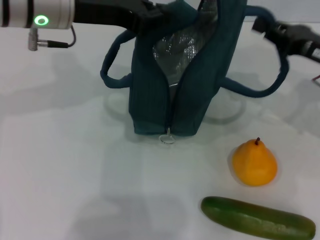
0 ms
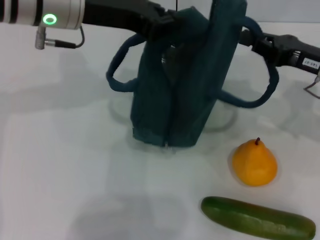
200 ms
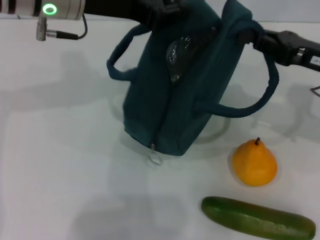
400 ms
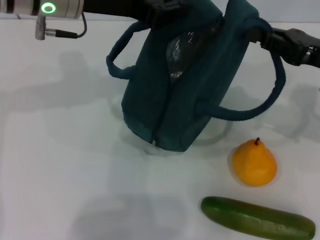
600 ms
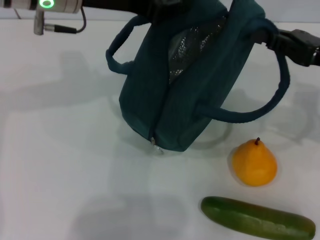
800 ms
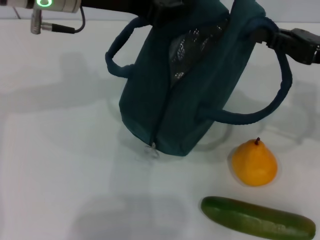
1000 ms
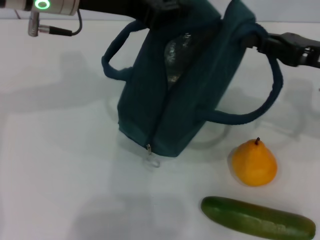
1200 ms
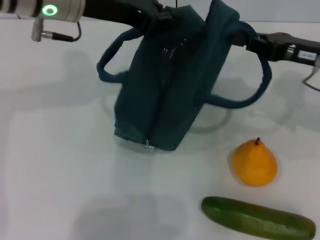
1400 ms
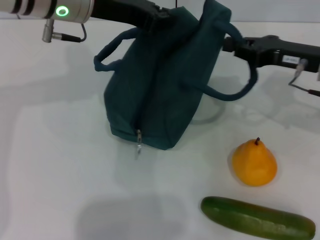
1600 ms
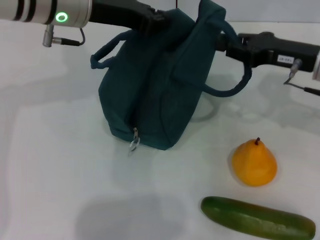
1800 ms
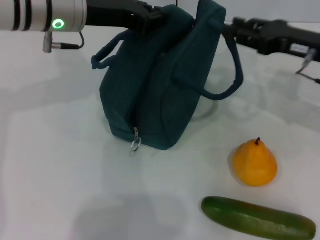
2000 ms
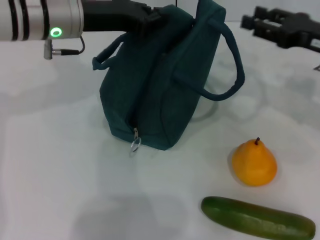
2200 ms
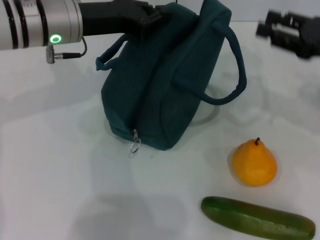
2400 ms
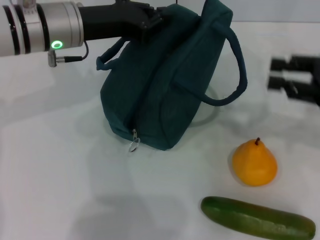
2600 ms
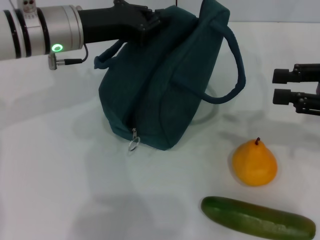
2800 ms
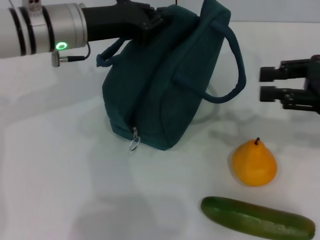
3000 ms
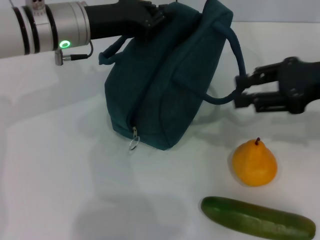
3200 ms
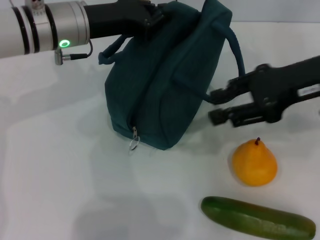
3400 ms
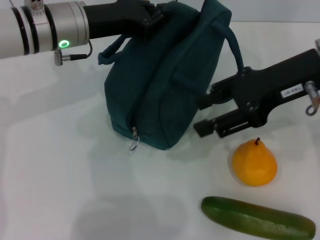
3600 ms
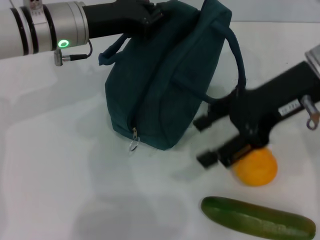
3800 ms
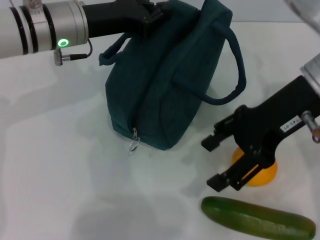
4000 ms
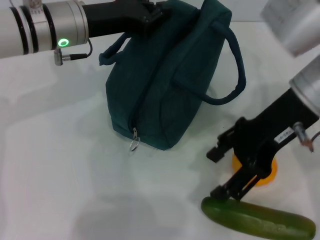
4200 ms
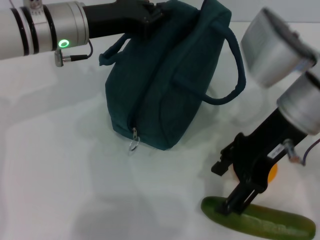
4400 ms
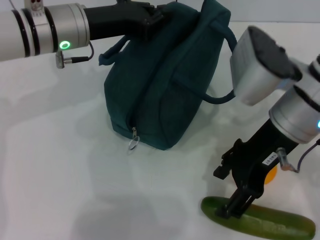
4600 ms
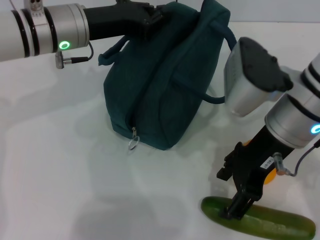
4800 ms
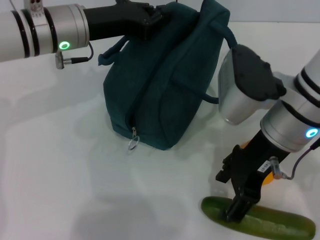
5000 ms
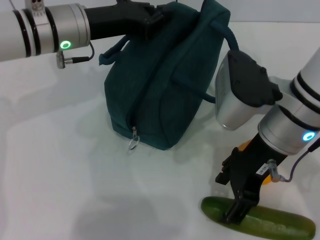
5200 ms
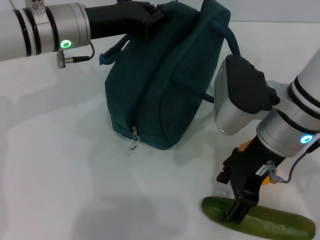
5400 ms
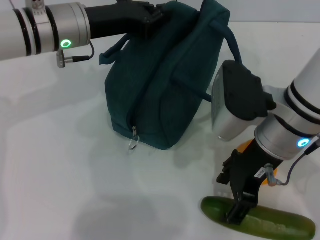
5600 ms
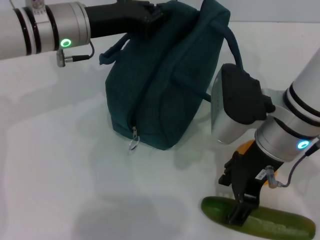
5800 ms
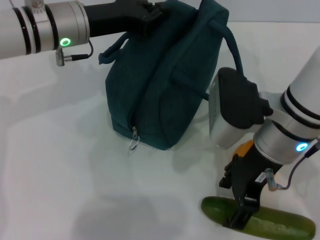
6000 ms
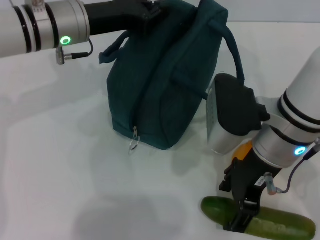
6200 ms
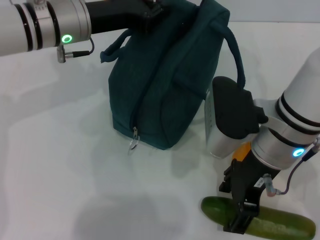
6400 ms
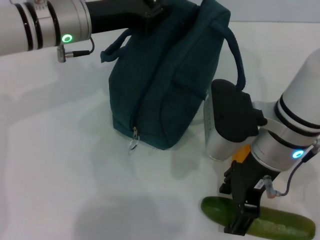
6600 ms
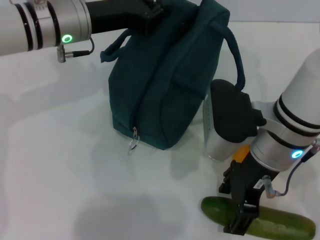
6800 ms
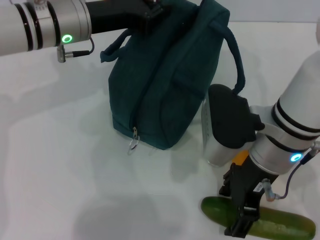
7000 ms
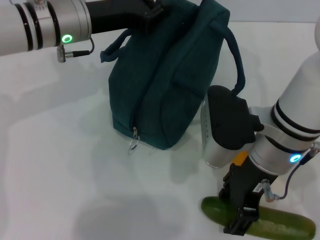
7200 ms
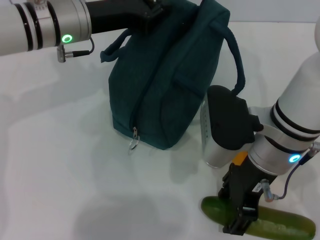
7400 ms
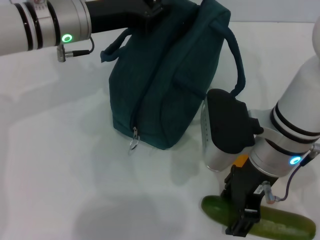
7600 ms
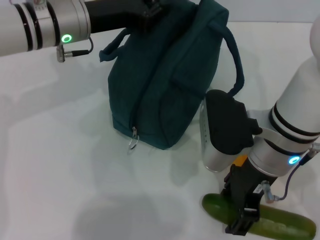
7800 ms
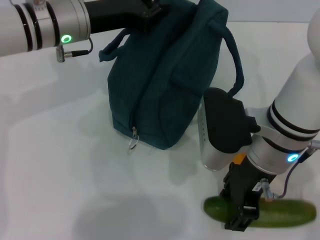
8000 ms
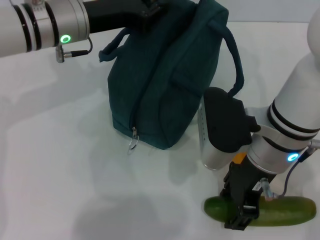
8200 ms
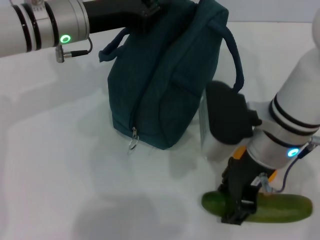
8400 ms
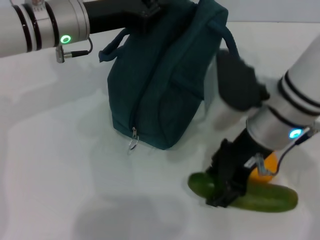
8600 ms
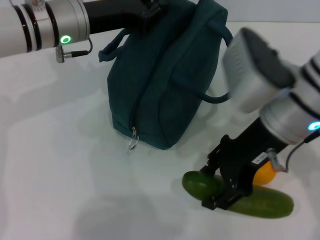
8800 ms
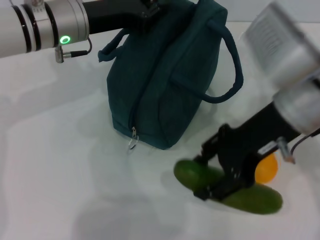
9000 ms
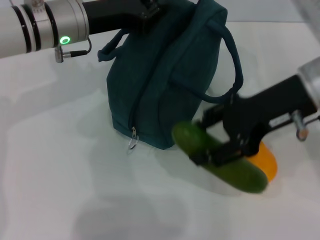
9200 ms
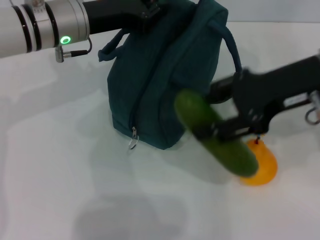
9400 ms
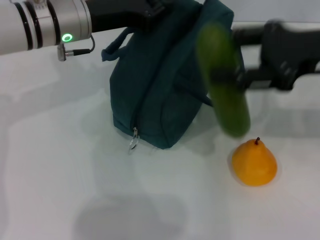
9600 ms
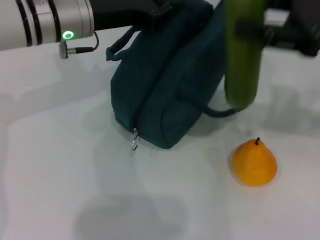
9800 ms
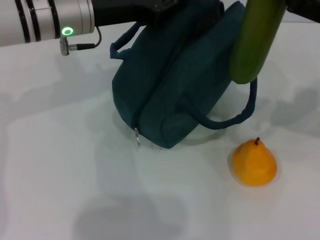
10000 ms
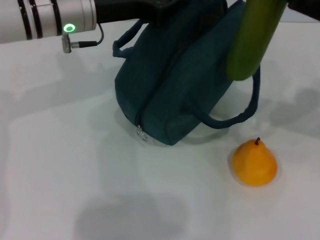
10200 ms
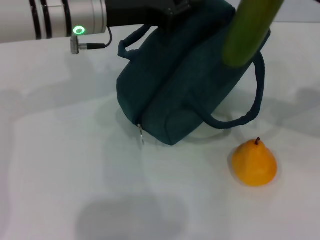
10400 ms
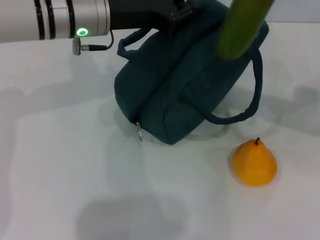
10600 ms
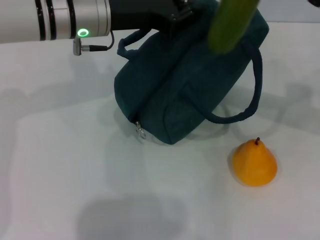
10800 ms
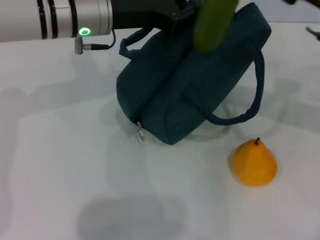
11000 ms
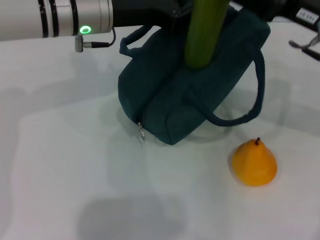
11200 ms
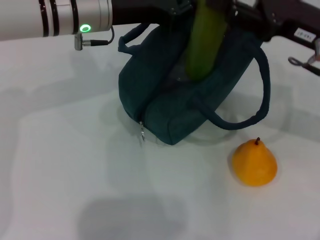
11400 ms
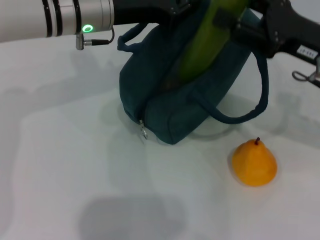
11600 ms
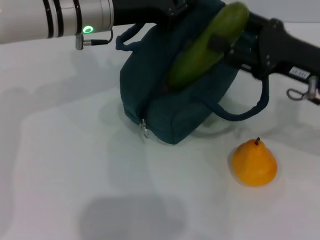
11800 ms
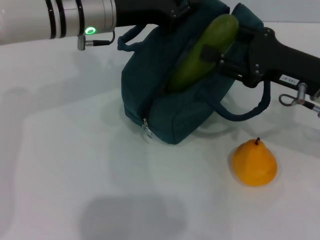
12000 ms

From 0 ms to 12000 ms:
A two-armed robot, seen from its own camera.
Step, from 0 ms to 8000 ms: Pick up the cucumber with your right hand.
From 1600 ms to 3000 ms: The right gripper heads backward and to the right, covering approximately 10 cm, and opens up. The left gripper is displaced downward by approximately 5 cm.
From 3000 ms to 4400 ms: The right gripper moves to the left, approximately 15 cm, and opens up.
From 4400 ms to 6000 ms: The right gripper ends up about 5 cm from where it was.
From 6000 ms to 7600 ms: There are only small adjustments of the grippers.
From 7600 ms to 9000 ms: The right gripper shifts about 5 cm upward.
From 9000 ms to 10400 ms: The right gripper goes about 10 cm to the right.
From 10400 ms to 12000 ms: The right gripper travels downward by about 10 cm.

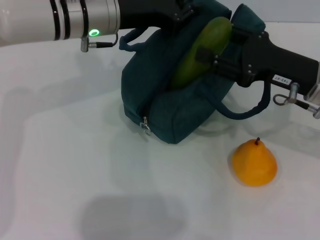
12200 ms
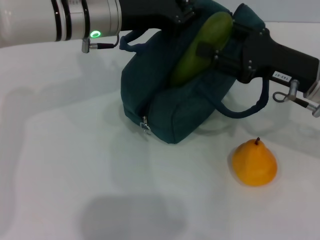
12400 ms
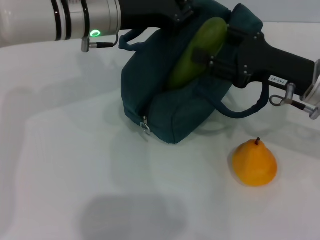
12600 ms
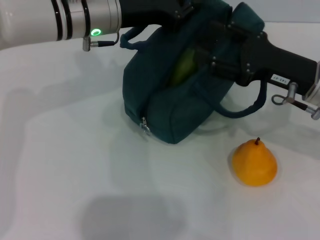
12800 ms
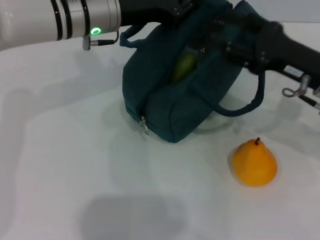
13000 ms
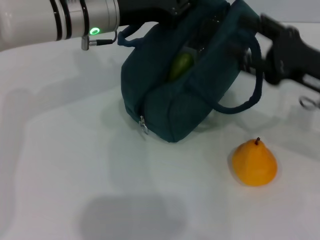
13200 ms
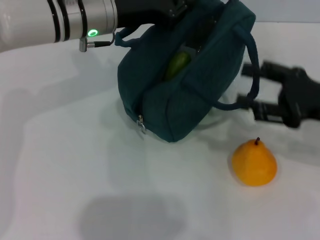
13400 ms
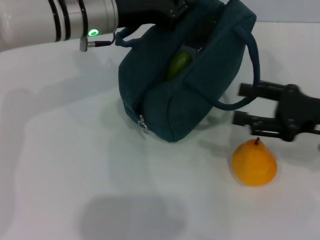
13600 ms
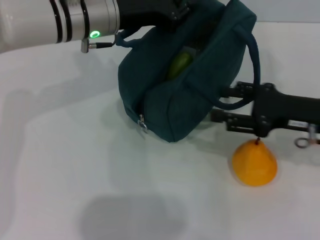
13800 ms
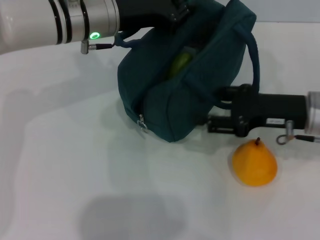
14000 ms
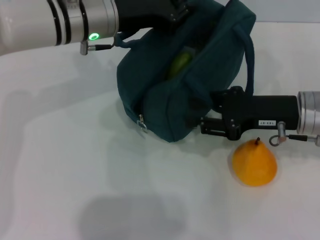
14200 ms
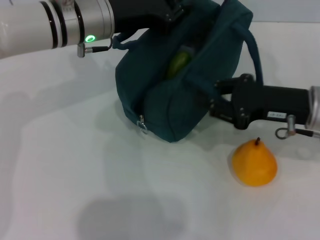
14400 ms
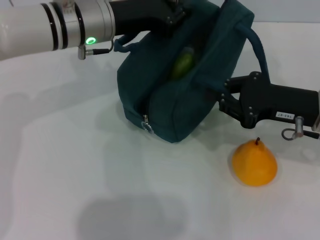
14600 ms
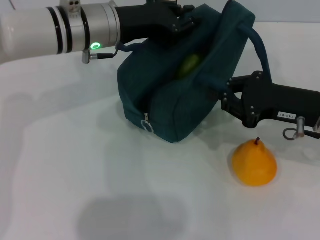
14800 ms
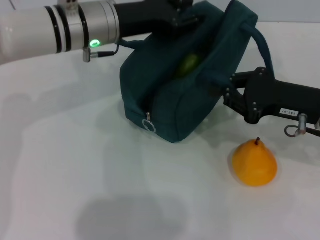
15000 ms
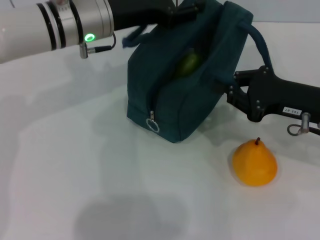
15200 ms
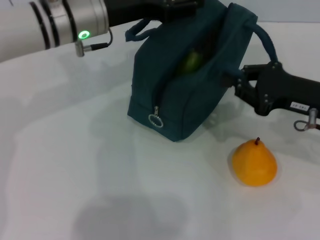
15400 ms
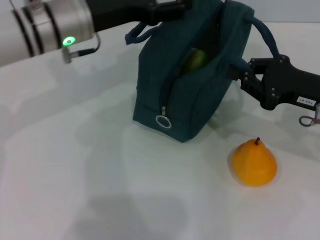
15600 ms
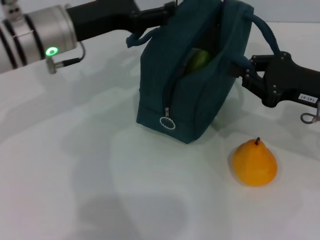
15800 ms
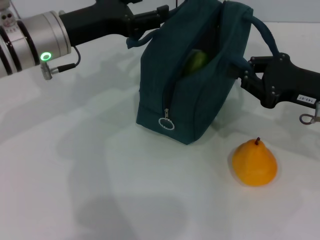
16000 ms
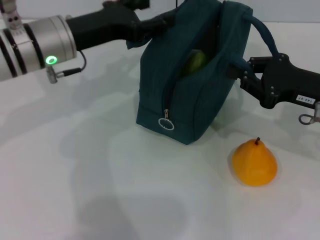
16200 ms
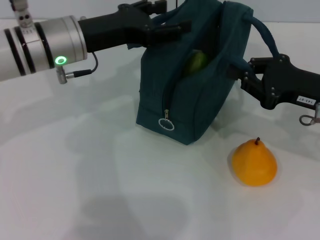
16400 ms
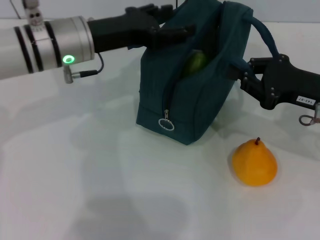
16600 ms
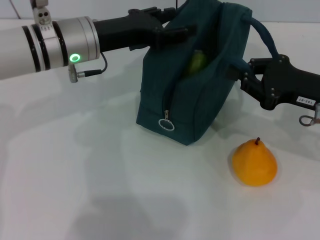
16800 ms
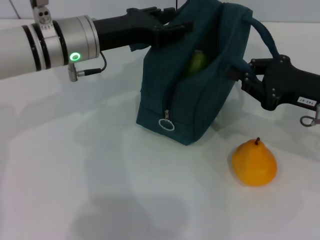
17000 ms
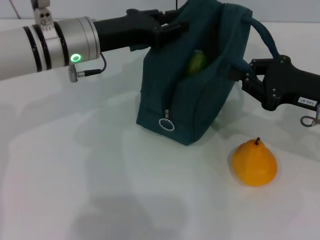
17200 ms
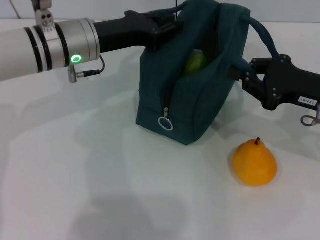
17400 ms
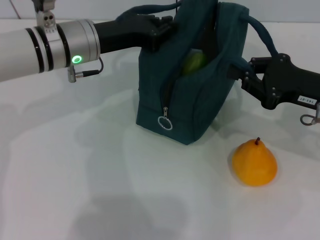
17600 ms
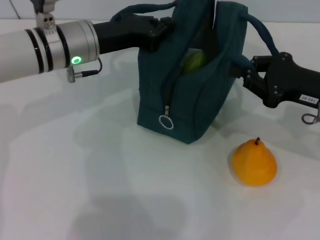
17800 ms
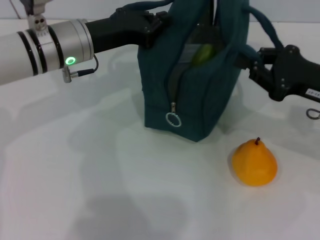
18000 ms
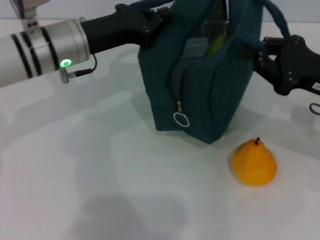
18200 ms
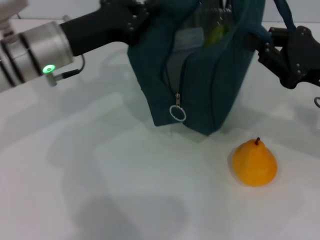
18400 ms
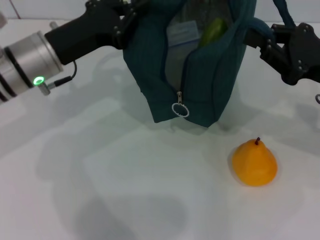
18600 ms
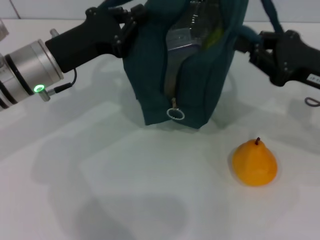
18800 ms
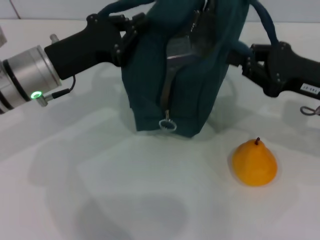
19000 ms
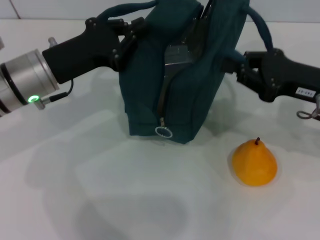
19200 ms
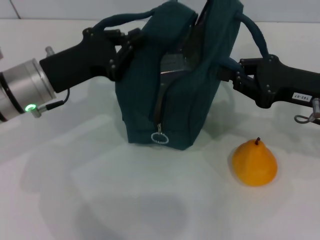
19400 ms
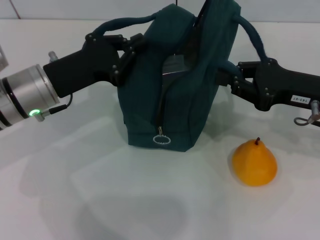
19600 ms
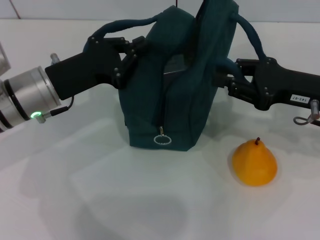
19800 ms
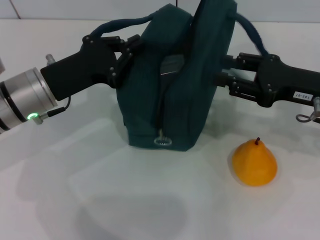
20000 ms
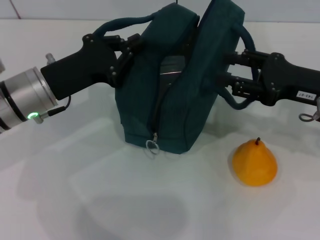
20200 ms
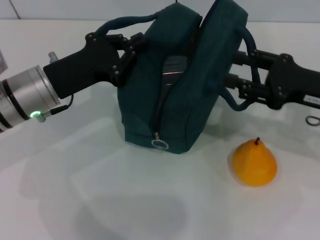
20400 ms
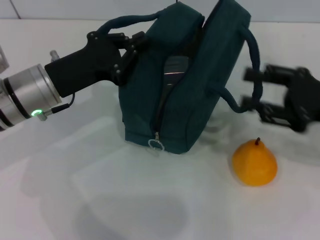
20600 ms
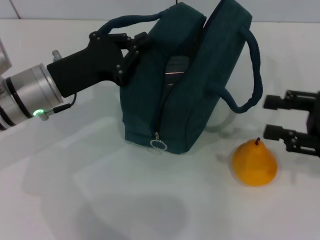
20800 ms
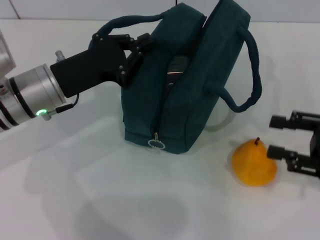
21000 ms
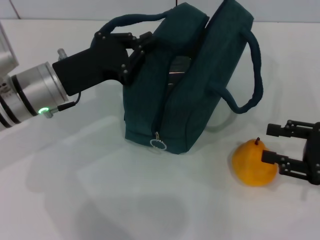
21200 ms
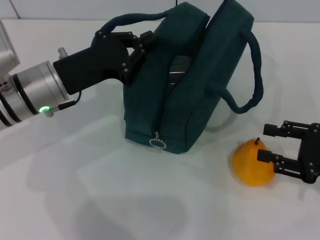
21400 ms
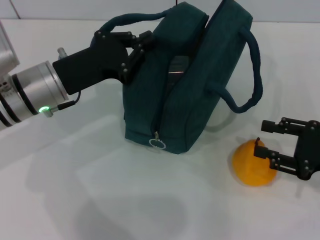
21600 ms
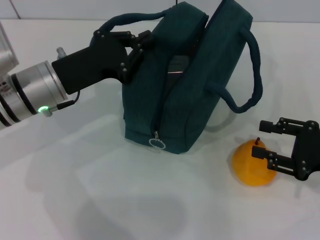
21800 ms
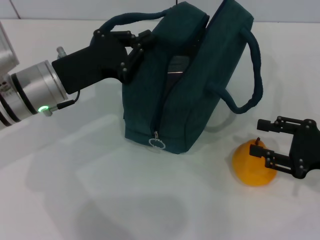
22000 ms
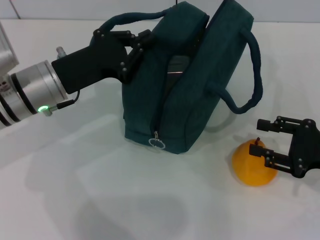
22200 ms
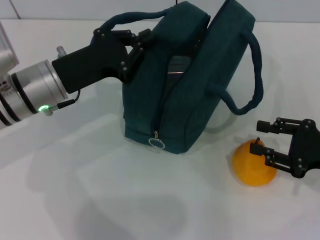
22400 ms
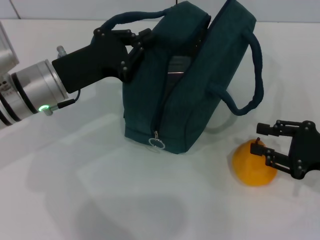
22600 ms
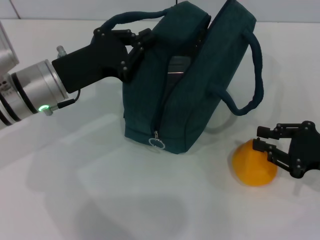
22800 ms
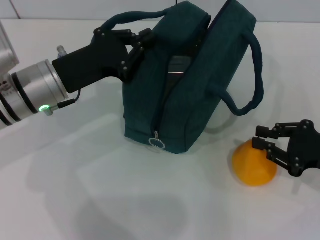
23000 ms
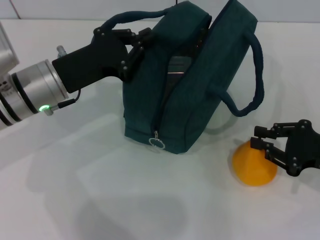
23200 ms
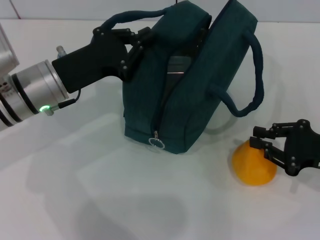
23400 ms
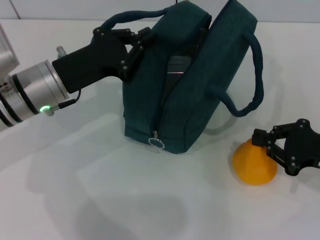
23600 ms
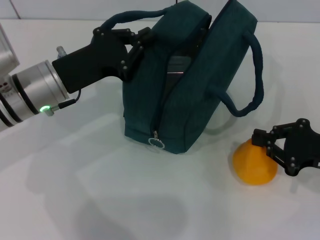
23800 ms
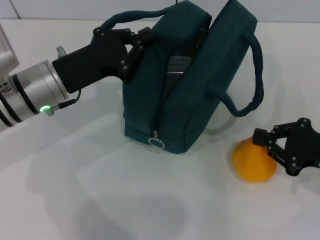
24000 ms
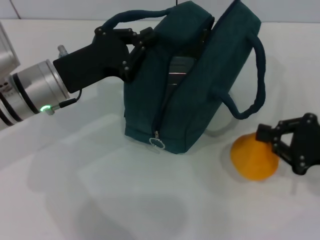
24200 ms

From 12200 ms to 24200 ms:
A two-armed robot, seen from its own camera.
Step, from 13200 ms to 23800 ms: Grab the pear with your right hand.
From 13800 ms to 15200 ms: The left gripper opens its fingers; the right gripper closes its fingers.
From 15200 ms to 16600 ms: The left gripper opens its fingers.
From 16600 ms to 18200 ms: The left gripper closes up.
From 18200 ms to 19800 ms: The left gripper goes some 5 cm backward.
From 19800 ms to 21200 ms: The right gripper shifts roughly 10 cm to the right and backward, and opens up.
From 21200 ms to 22600 ms: The grippers stay close to where they were, moving slightly.
From 22600 ms to 24200 ms: The right gripper closes its fingers.
